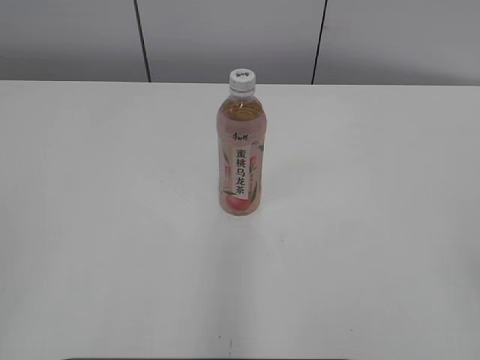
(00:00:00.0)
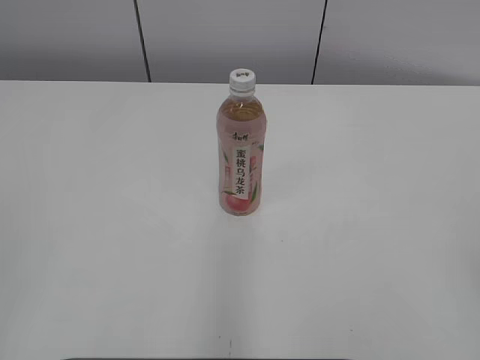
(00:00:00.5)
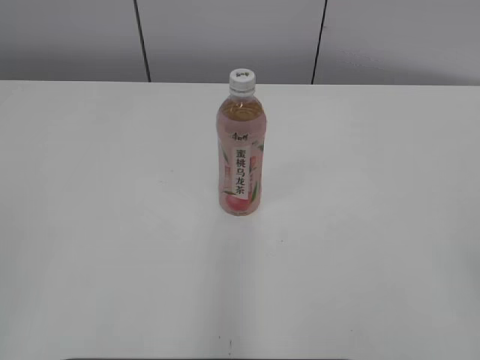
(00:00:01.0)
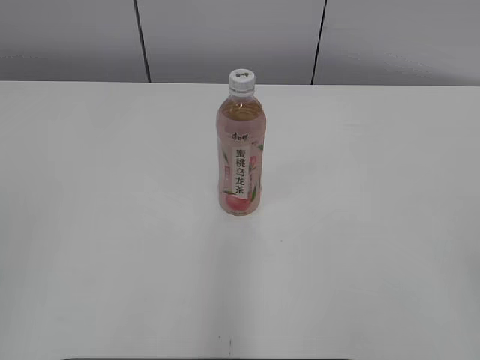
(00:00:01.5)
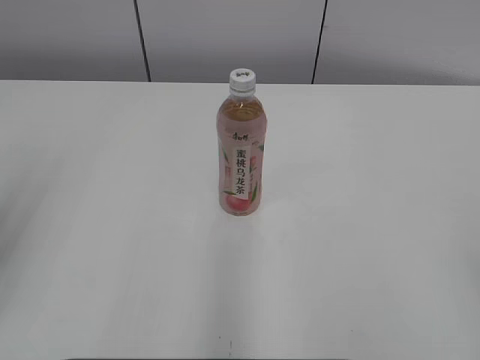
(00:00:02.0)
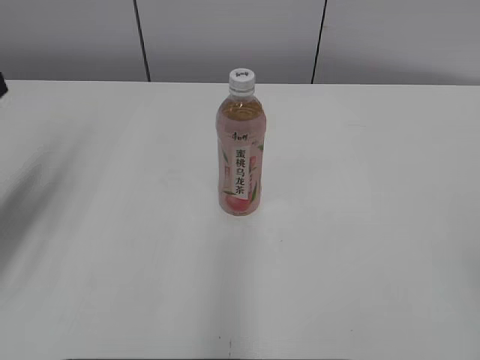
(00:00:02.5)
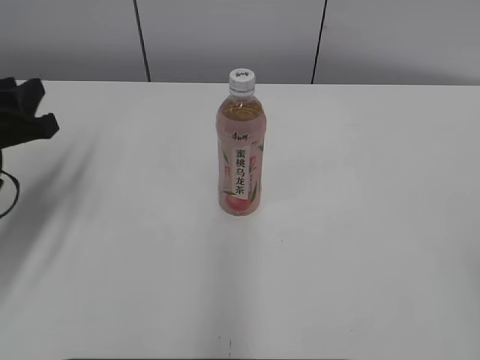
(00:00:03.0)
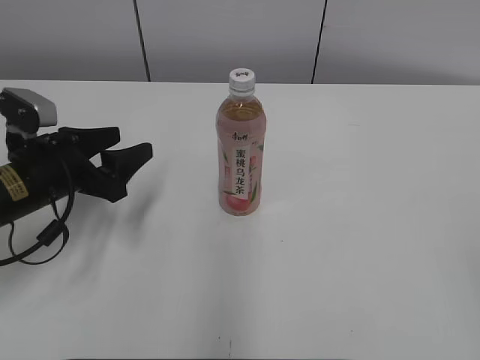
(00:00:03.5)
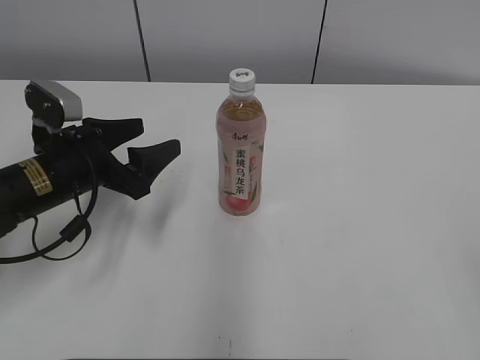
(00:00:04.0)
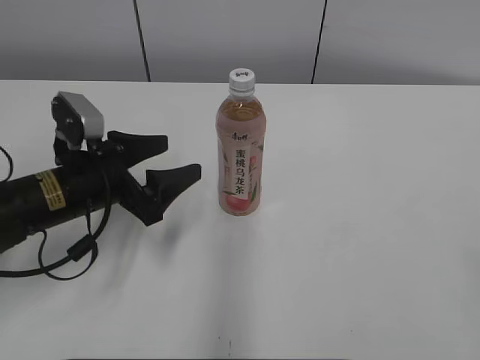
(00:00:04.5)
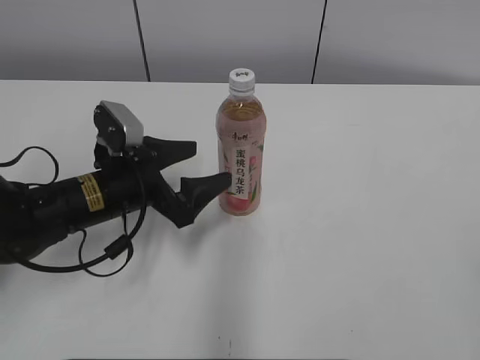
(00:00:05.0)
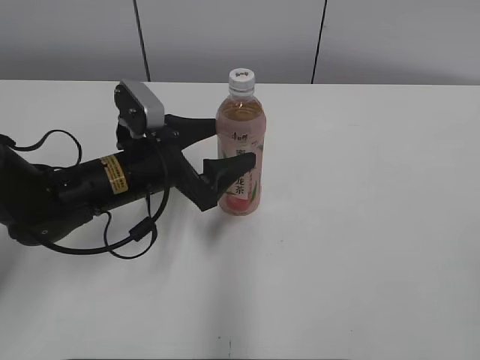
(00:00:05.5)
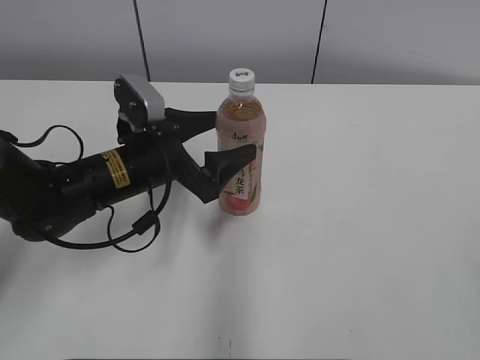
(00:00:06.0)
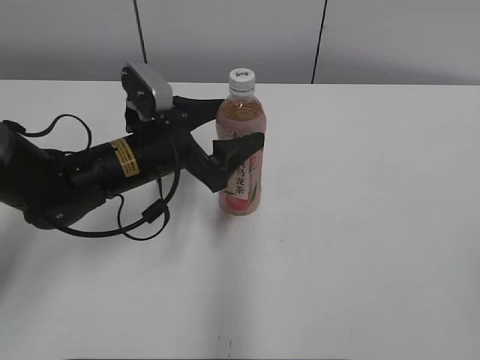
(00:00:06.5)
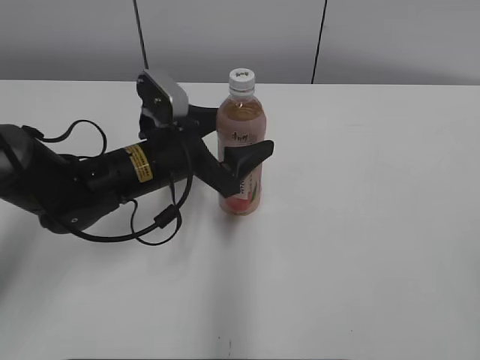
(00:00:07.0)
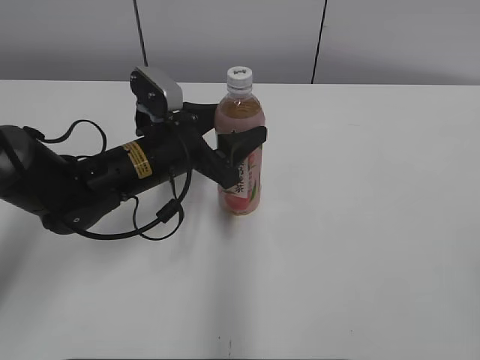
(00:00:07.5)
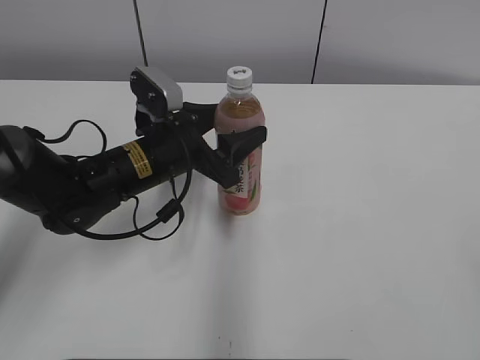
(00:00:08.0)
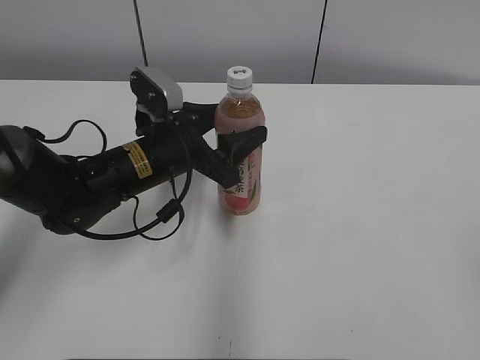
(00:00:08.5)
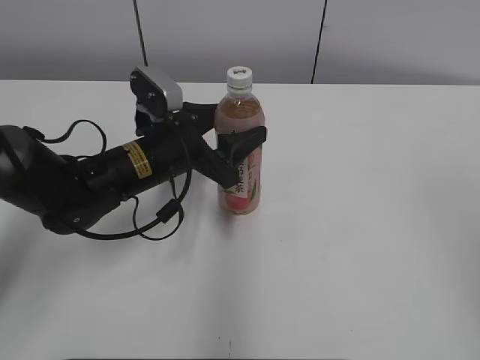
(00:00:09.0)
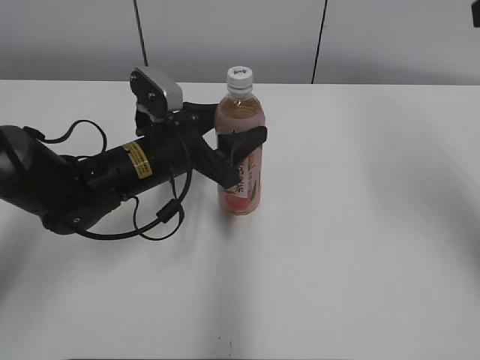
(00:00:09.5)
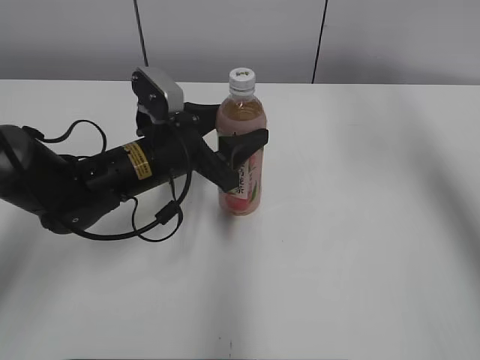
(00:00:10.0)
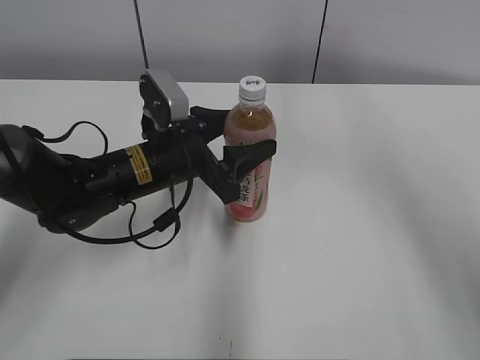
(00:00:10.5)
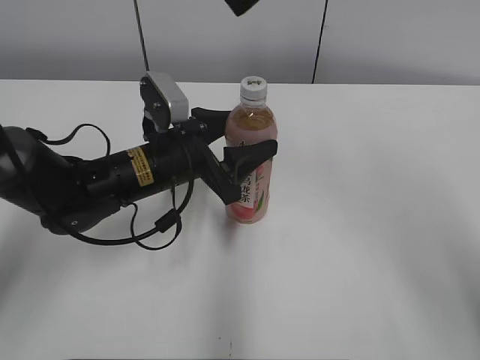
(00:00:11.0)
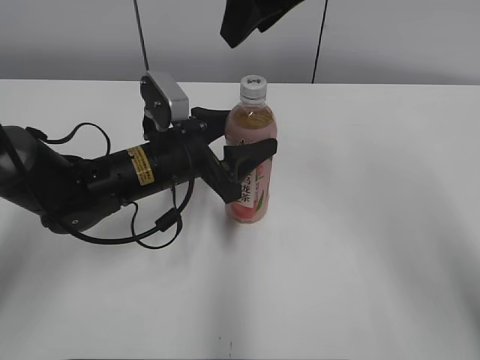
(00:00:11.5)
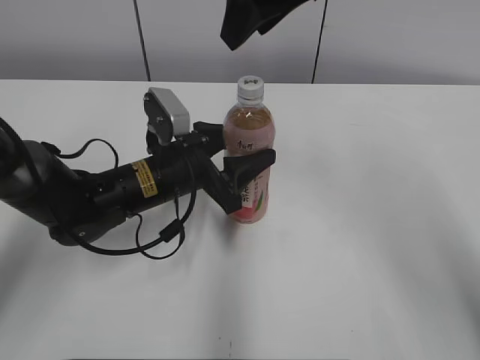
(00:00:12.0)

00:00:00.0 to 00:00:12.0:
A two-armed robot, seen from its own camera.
Step, 00:00:00.0 to 00:00:07.0: Grab the Peach Oolong Tea with the left hand.
00:00:02.0 to 00:00:04.0: The left gripper goes some 30 cm downward, forward and to the right, and opens.
00:00:04.0 to 00:00:06.0: The left gripper moves to the right, approximately 10 cm.
00:00:06.0 to 00:00:08.0: The left gripper closes up.
00:00:08.0 to 00:00:10.0: The right gripper goes about 40 cm forward and upward.
00:00:10.0 to 00:00:12.0: The right gripper shifts roughly 20 cm to the left and downward.

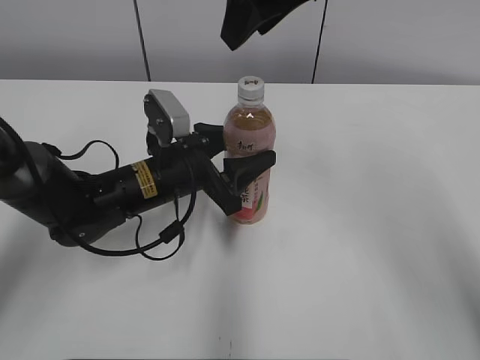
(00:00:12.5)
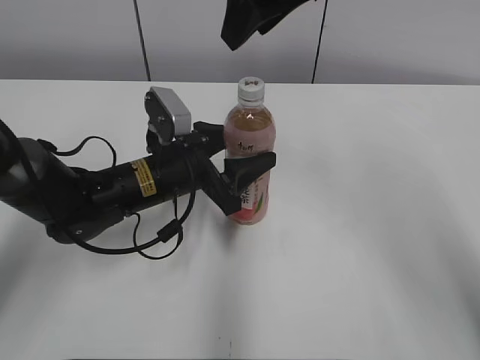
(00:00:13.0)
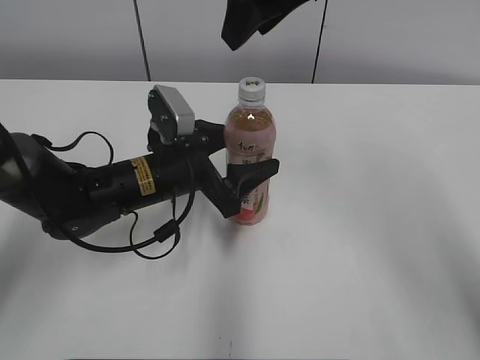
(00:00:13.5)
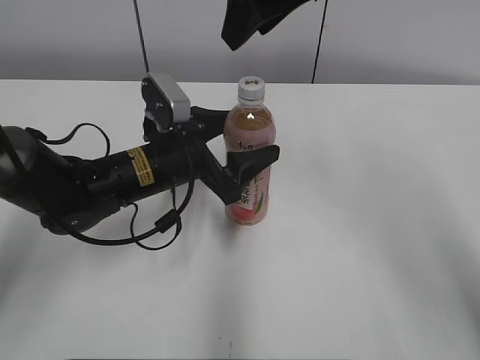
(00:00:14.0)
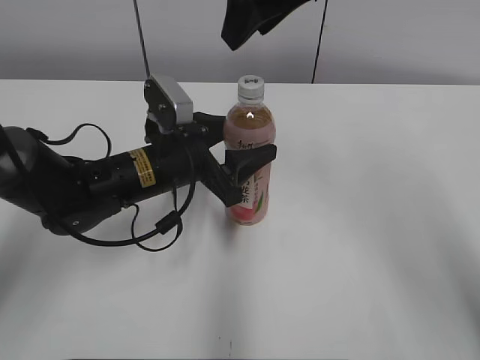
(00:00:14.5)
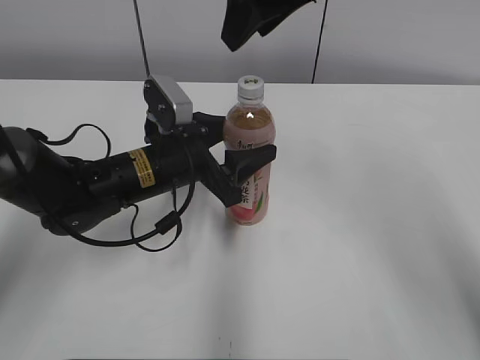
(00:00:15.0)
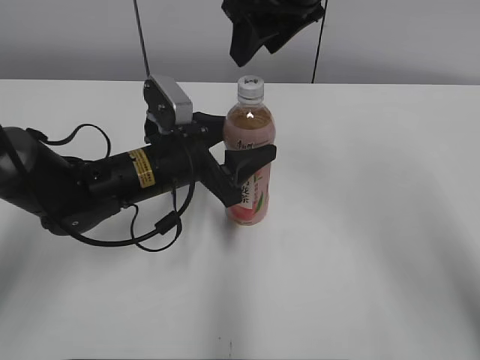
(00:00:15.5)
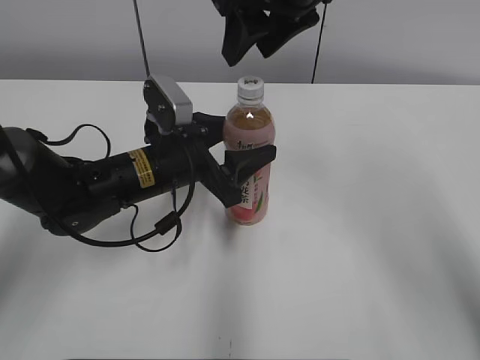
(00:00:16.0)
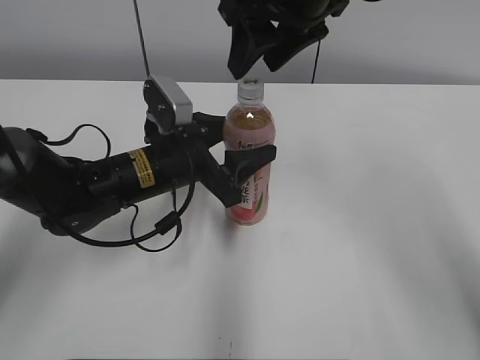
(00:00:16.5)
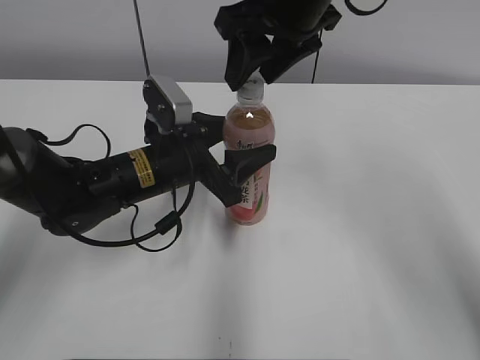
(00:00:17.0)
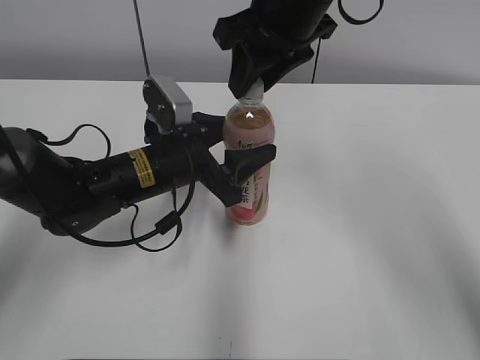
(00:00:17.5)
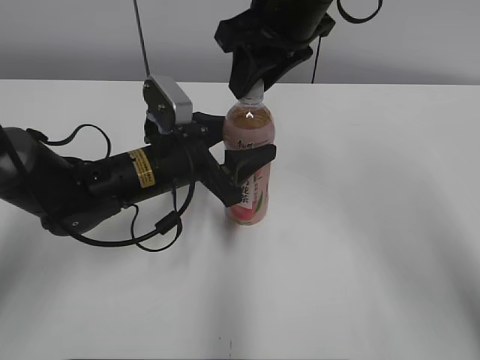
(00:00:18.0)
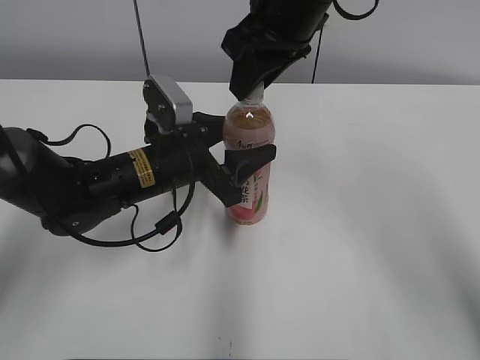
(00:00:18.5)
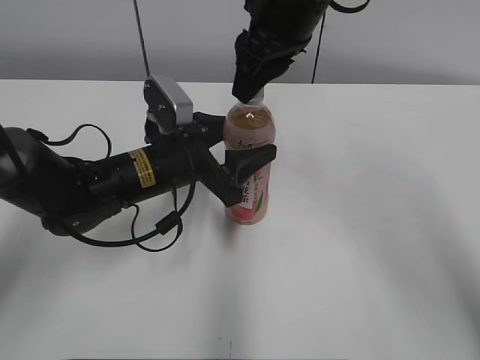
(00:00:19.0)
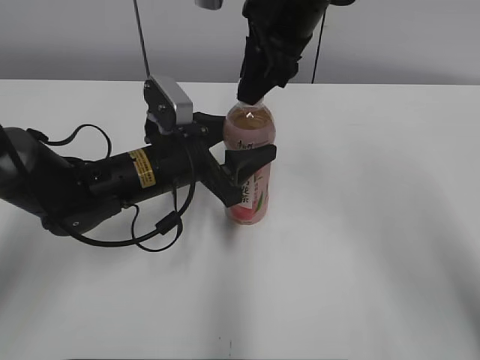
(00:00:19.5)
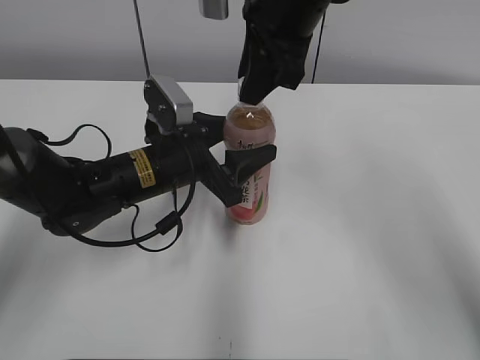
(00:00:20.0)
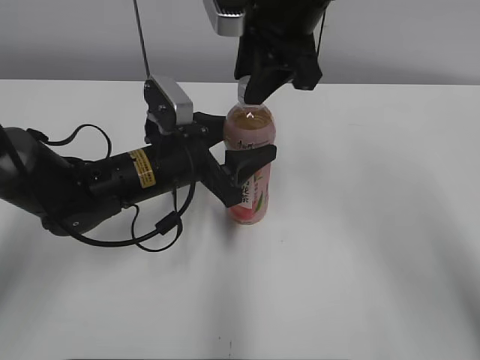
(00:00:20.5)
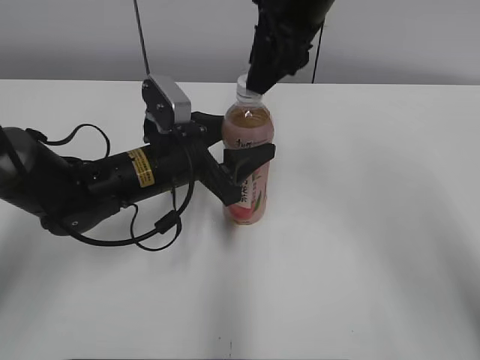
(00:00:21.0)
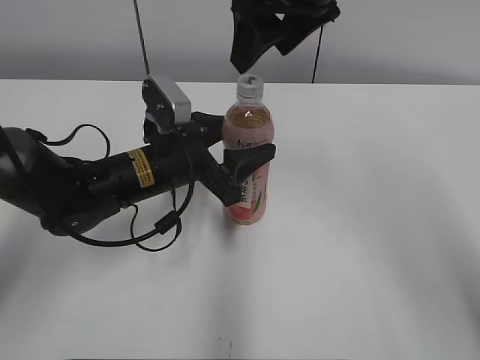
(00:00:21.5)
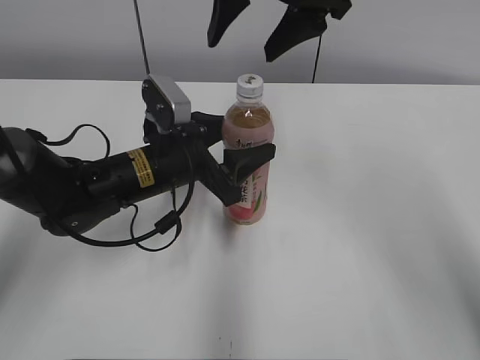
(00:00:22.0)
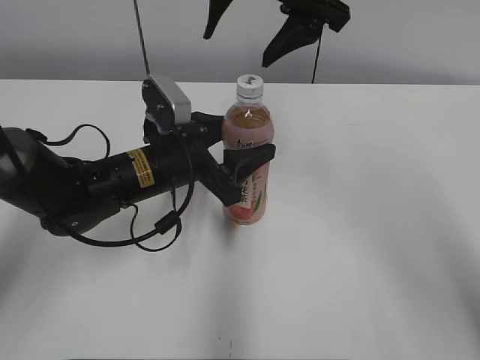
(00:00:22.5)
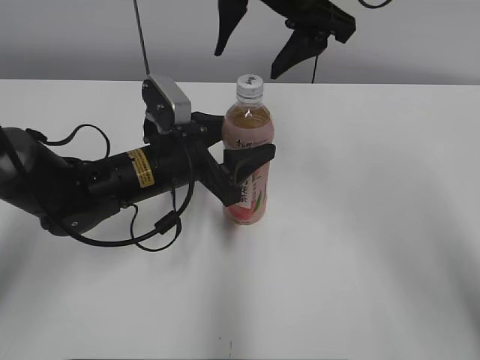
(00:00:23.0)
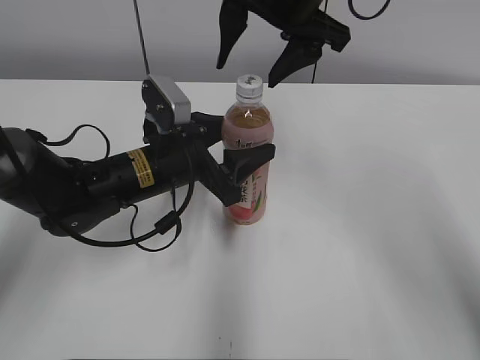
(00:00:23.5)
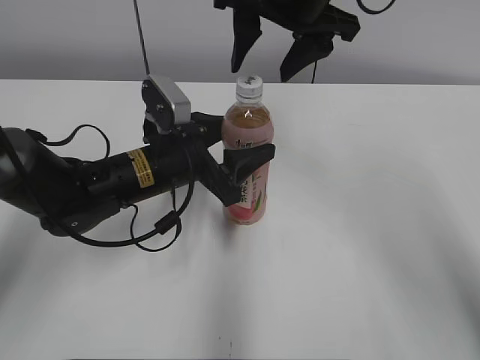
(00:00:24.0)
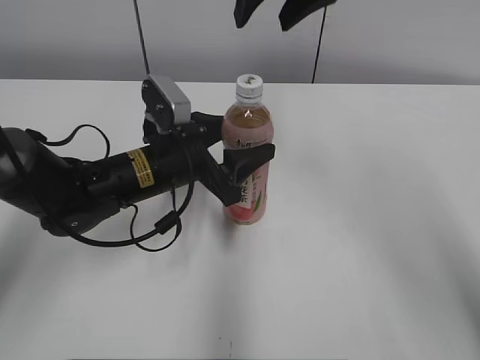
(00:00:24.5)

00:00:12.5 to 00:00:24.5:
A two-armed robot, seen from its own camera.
00:00:12.5 to 00:00:16.5: There are only small adjustments of the grippers.
00:00:16.5 to 00:00:18.5: The right gripper closes up.
00:00:20.5 to 00:00:22.5: The right gripper opens.
00:00:22.5 to 00:00:24.5: The right gripper closes.

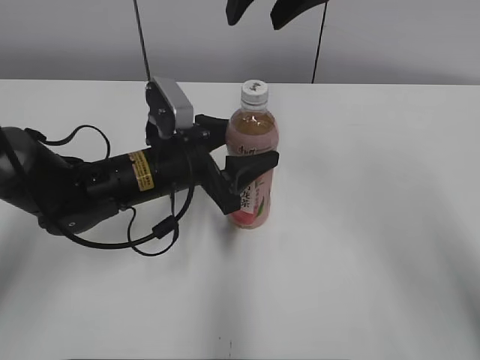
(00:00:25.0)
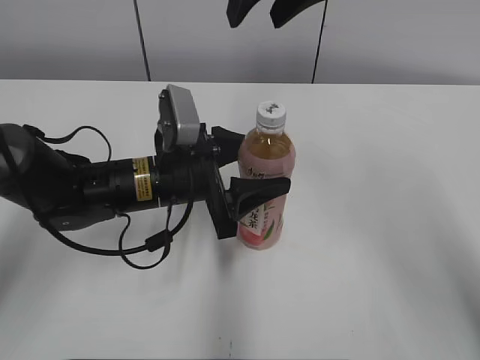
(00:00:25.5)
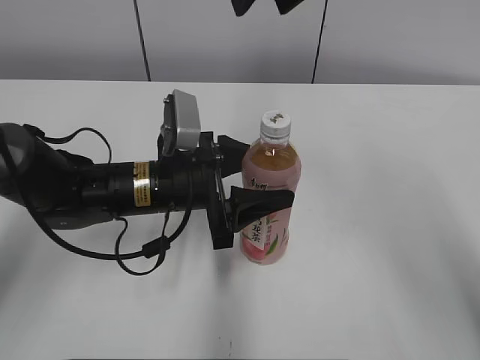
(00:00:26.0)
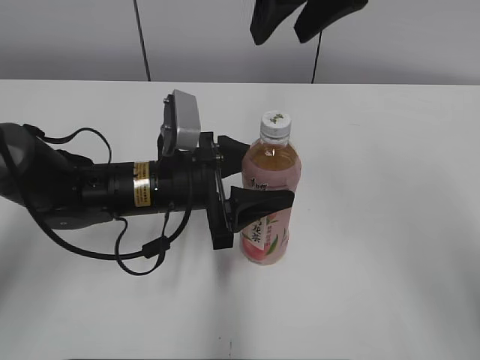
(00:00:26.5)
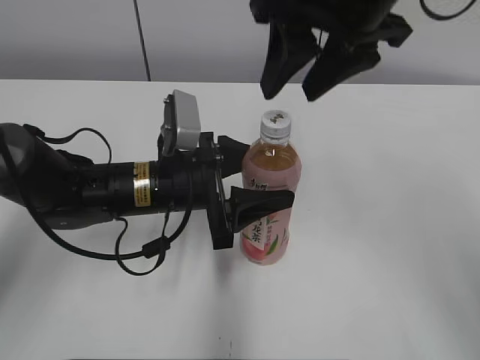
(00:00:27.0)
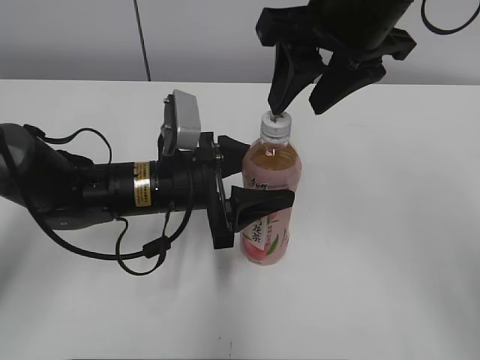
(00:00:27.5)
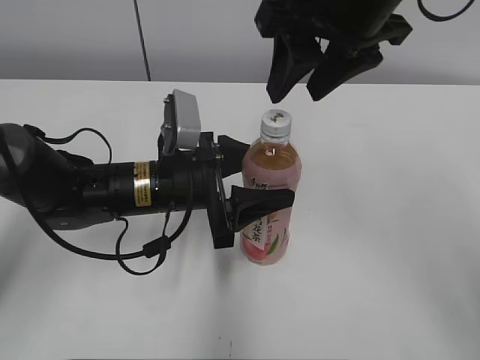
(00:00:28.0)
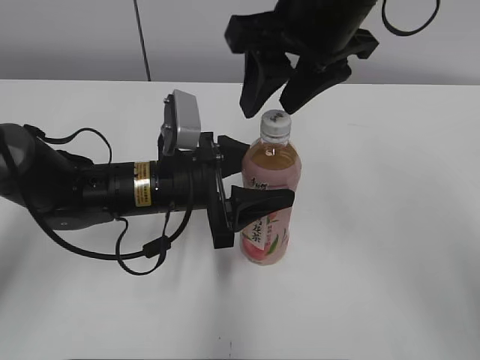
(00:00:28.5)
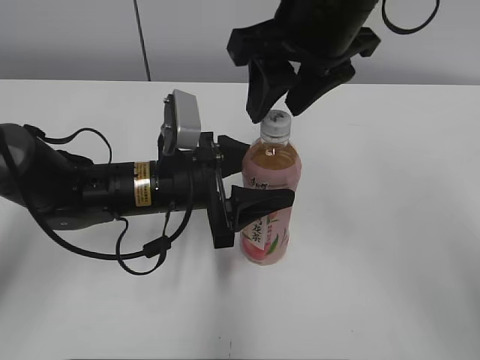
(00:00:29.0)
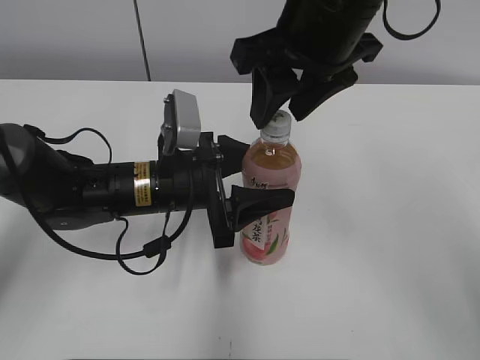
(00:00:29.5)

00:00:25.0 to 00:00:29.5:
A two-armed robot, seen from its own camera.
00:00:25.0 to 00:00:27.0: The right gripper is displaced backward by some 5 cm.
00:00:27.0 to 00:00:29.5: There are only small adjustments of the grippers.
